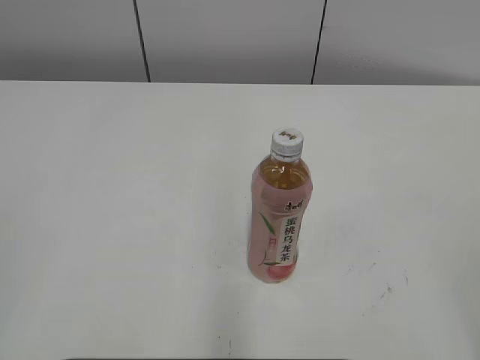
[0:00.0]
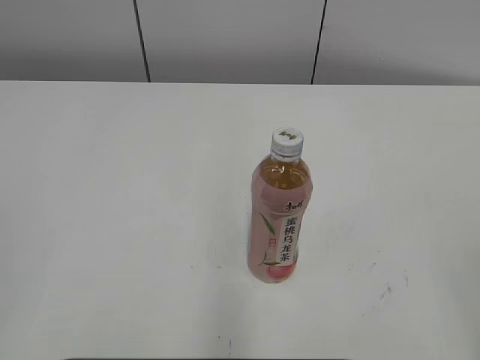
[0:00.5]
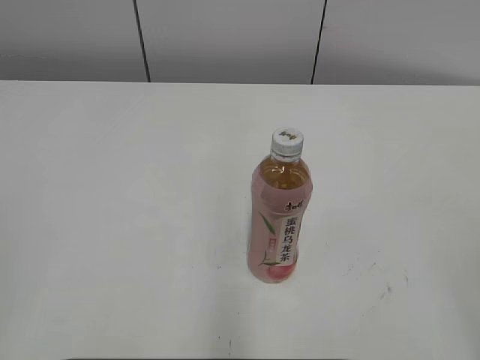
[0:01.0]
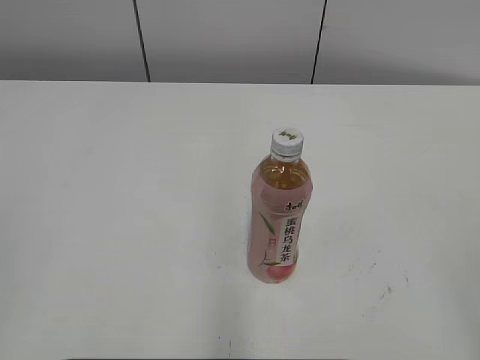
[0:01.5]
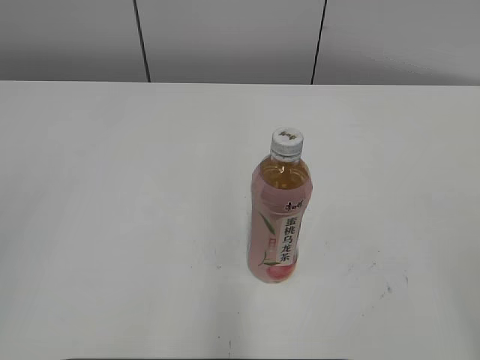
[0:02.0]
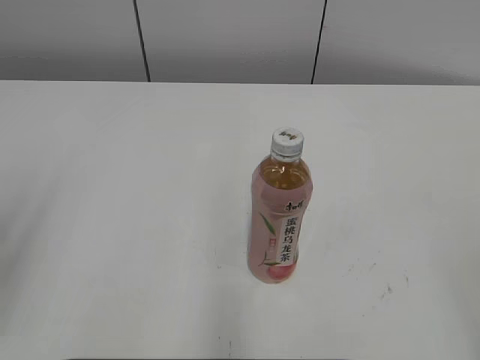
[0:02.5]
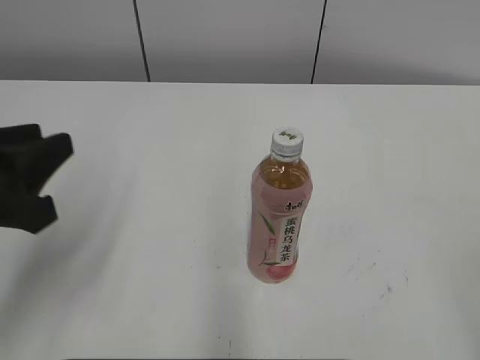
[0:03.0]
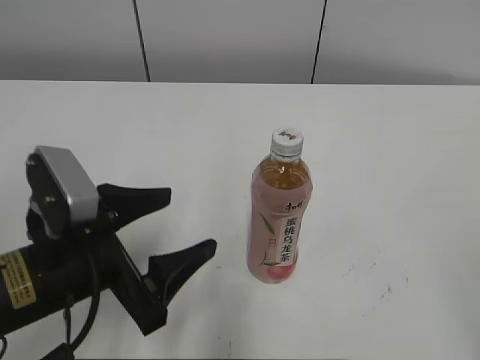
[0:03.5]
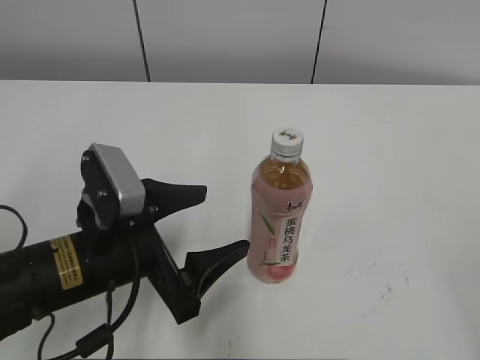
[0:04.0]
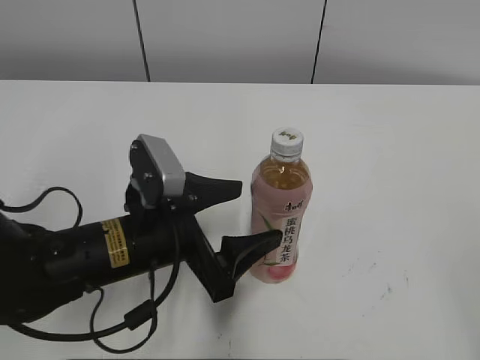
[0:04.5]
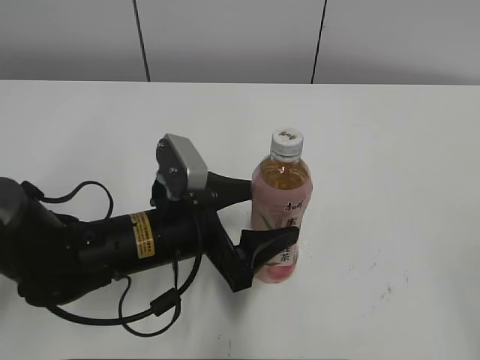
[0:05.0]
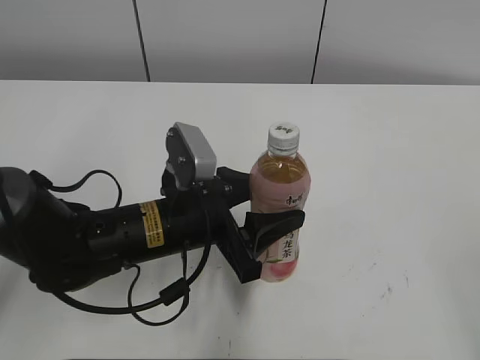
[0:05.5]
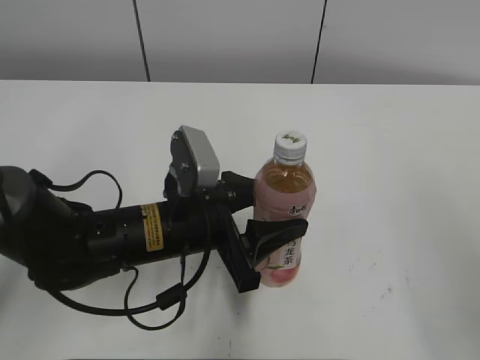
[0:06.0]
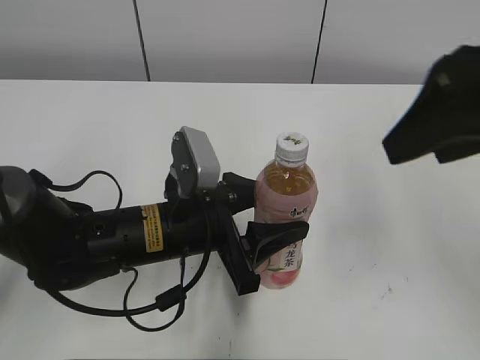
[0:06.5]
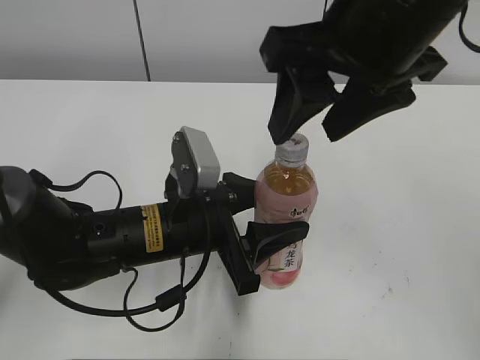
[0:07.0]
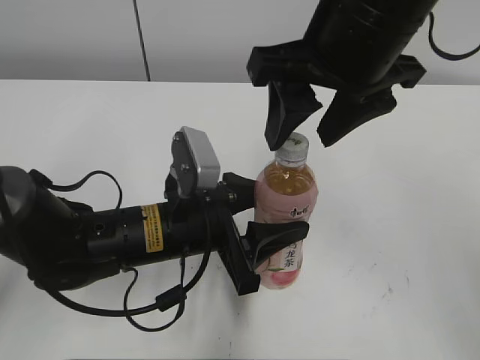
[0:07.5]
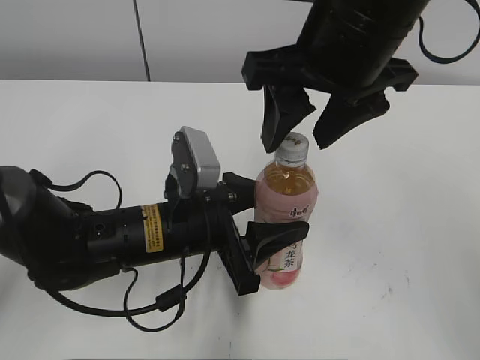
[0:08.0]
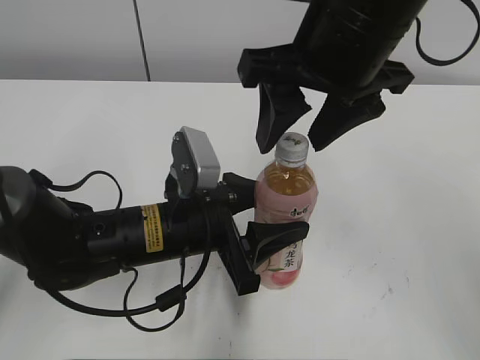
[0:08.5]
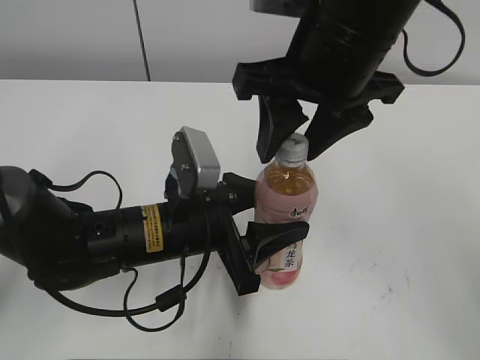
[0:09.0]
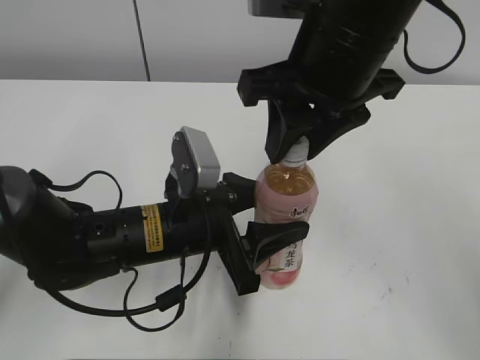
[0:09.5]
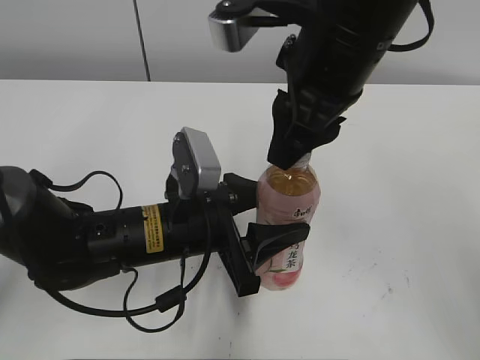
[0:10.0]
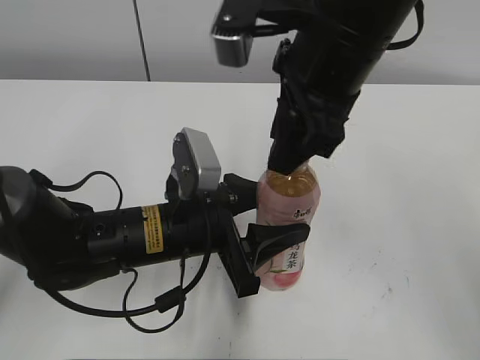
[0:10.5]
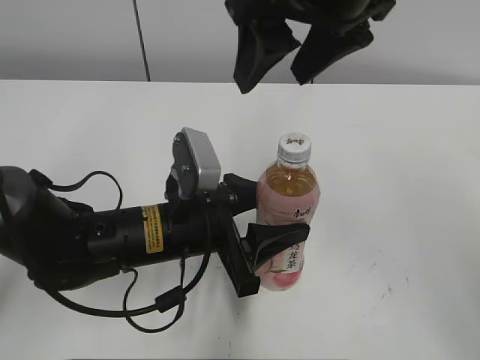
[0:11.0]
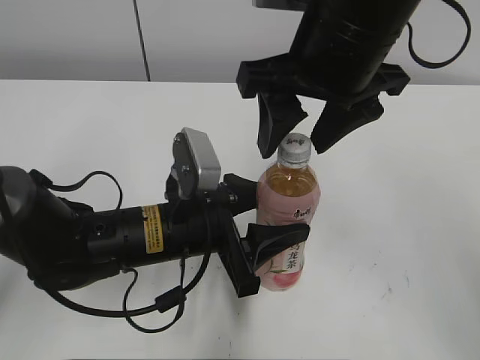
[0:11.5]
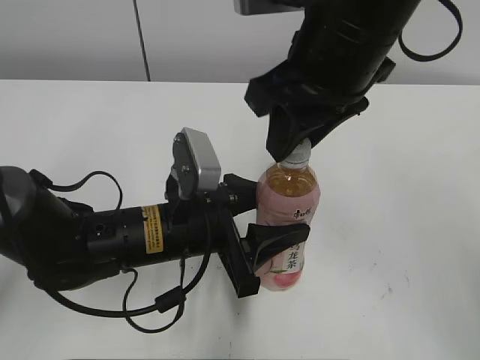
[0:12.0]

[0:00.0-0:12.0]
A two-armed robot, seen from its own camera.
Step, 0:00.0 to 0:05.5: Grab the Peach Oolong Tea with the left hand.
0:02.0 to 0:04.0: The left gripper shifts approximately 35 cm downward, forward and to the right, and opens up.
0:04.0 to 0:06.0: The right gripper shifts about 10 cm forward; the left gripper shifts roughly 10 cm to the right and forward, and closes.
0:06.0 to 0:08.0: The right gripper shifts approximately 30 cm forward and to the left.
0:08.0 to 0:10.0: The right gripper closes up.
0:10.0 to 0:12.0: The right gripper opens, then closes once more.

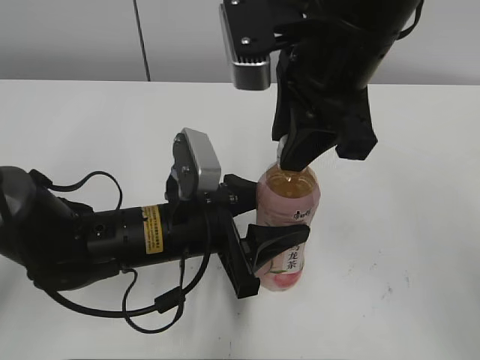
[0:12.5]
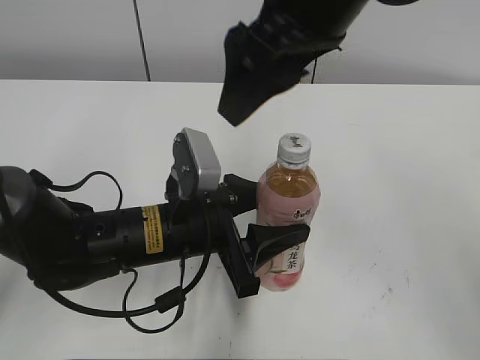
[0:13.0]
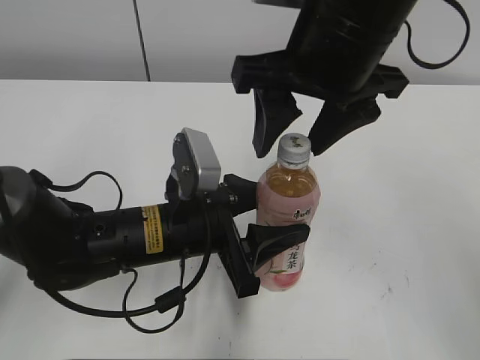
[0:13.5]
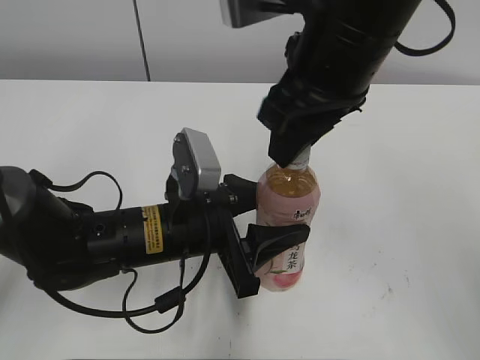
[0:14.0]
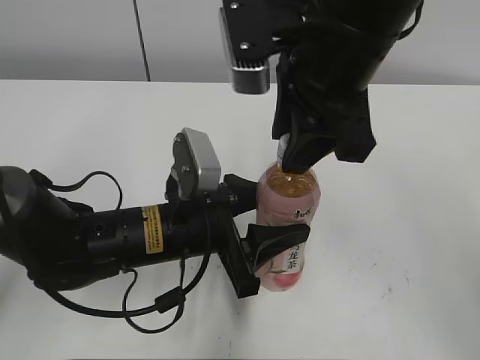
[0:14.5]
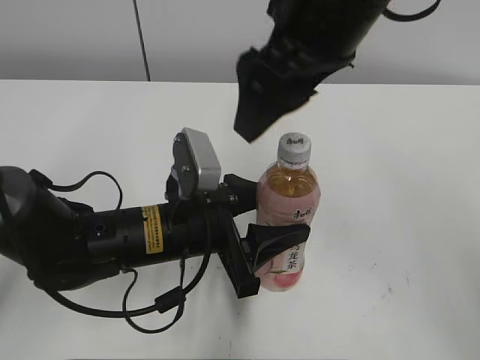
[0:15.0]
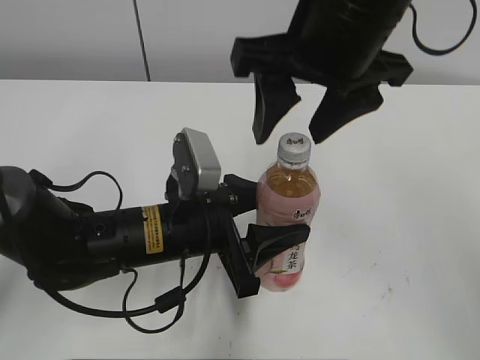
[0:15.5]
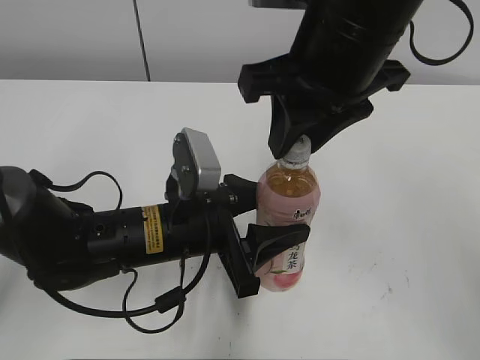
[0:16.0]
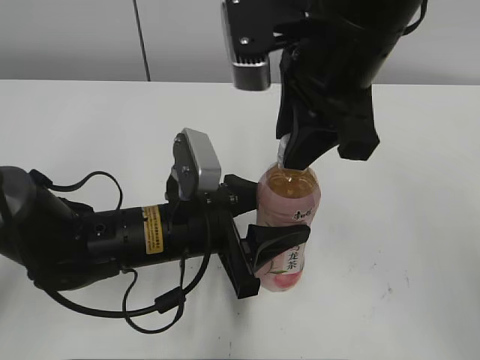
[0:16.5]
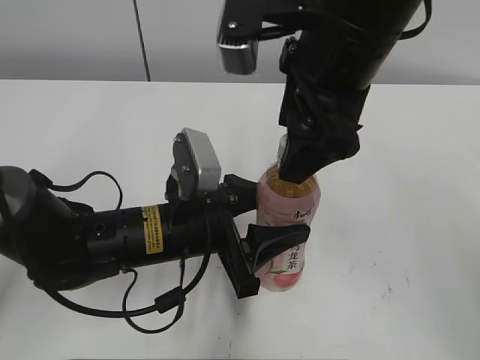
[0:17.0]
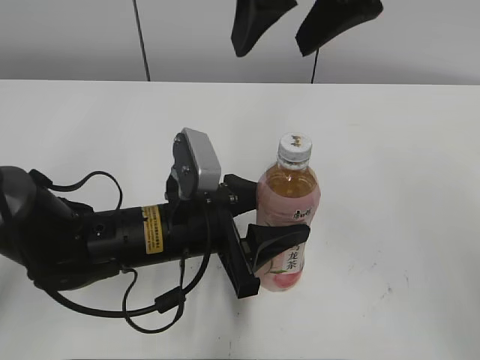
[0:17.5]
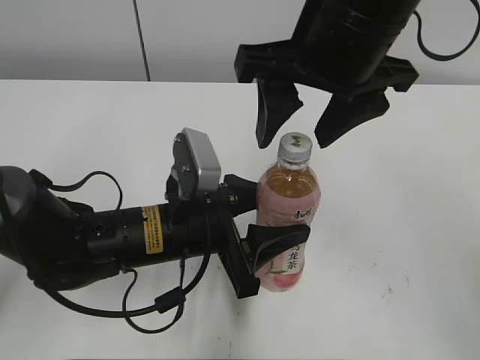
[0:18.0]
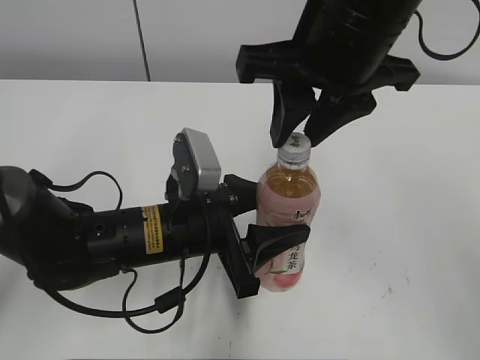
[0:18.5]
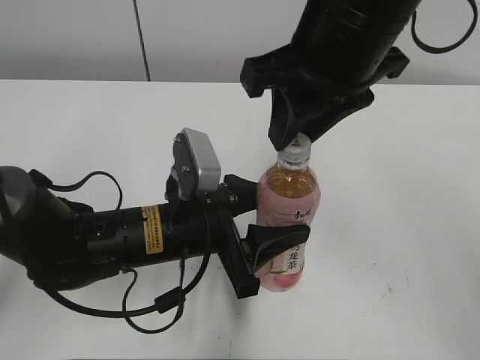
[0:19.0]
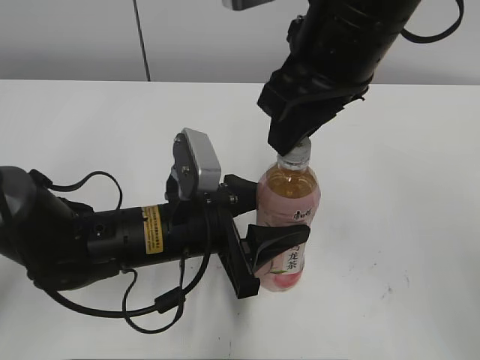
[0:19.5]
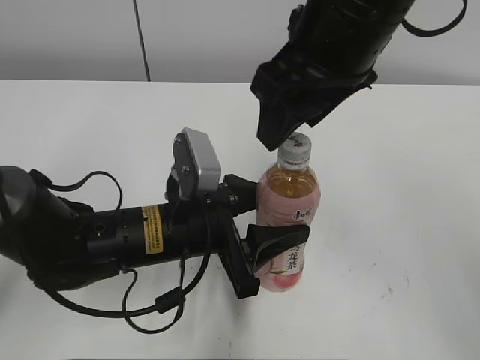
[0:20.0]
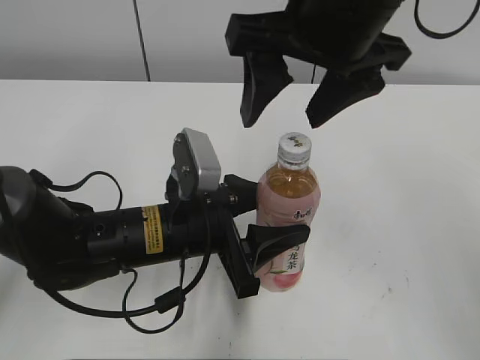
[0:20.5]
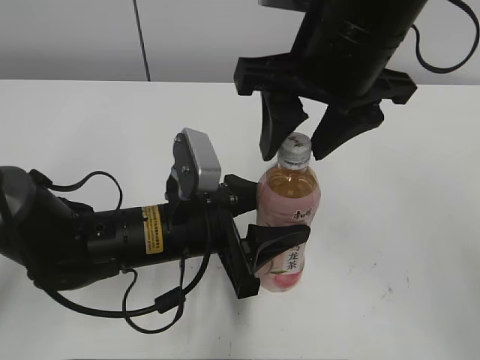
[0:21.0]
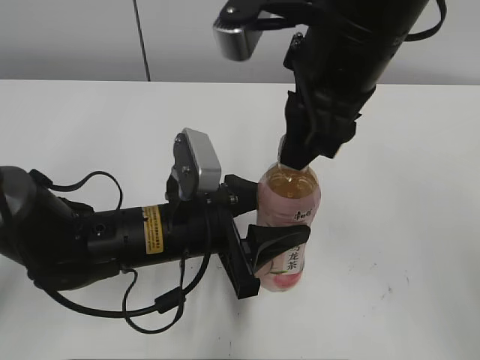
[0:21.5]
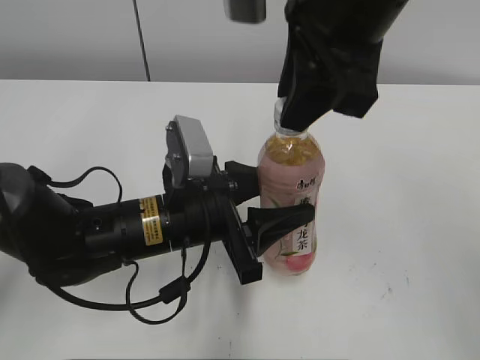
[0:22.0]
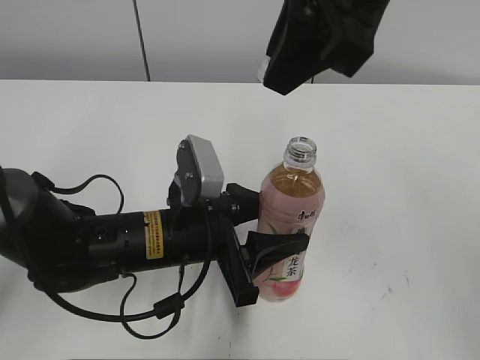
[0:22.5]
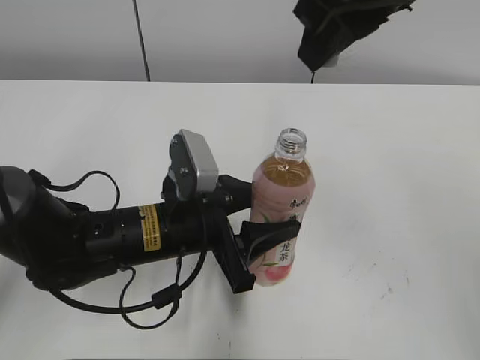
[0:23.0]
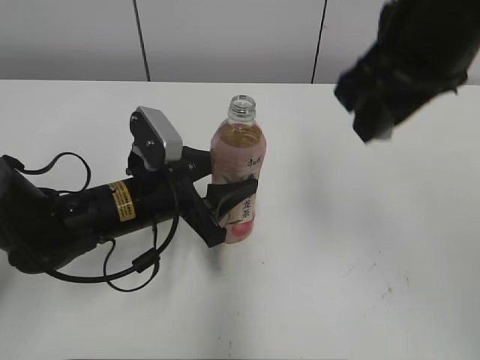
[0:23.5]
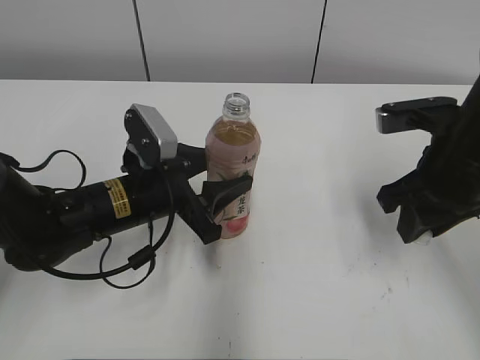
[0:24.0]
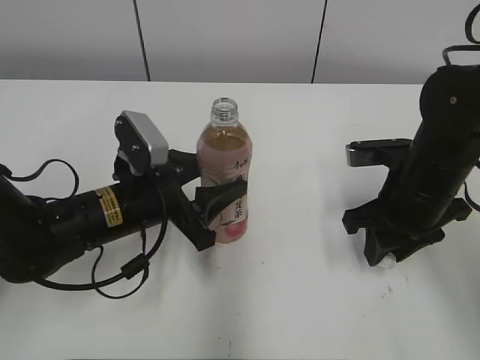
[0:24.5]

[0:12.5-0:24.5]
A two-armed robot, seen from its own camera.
0:12.5 to 0:14.5: The right gripper opens, then closes again.
0:14.5 to 0:16.5: The right gripper opens and closes again.
0:16.5 to 0:18.5: The right gripper opens, then closes once more.
0:18.5 to 0:20.5: The right gripper opens its fingers.
0:20.5 to 0:22.5: The right gripper closes up.
0:22.5 to 0:24.5: The right gripper is displaced downward and to the right by roughly 25 cm. The left gripper travels to the left by about 5 cm.

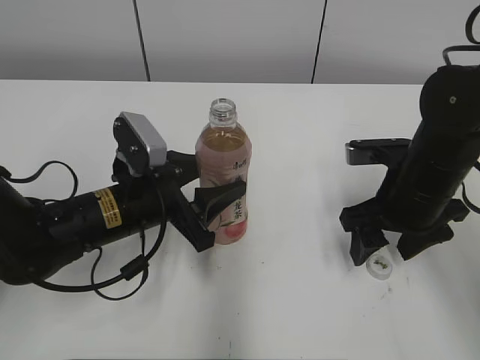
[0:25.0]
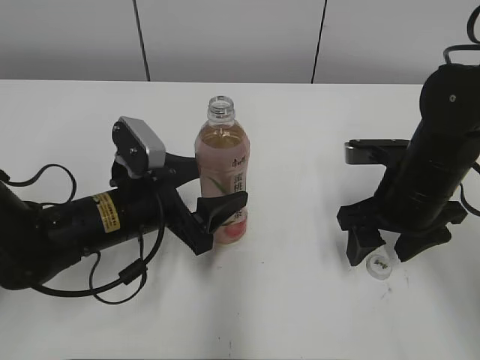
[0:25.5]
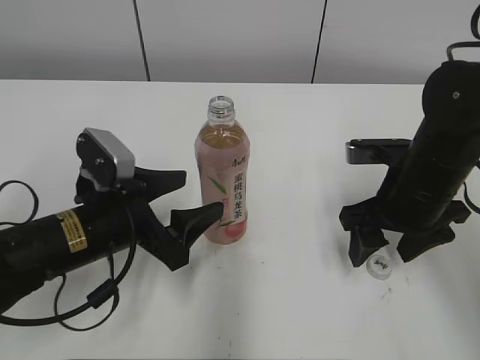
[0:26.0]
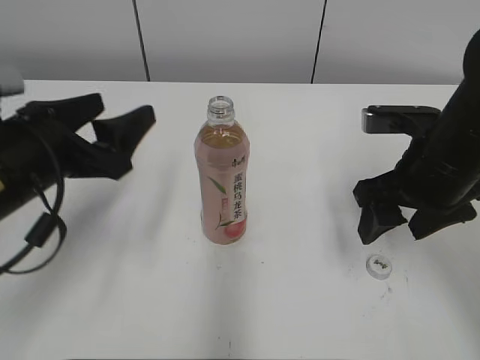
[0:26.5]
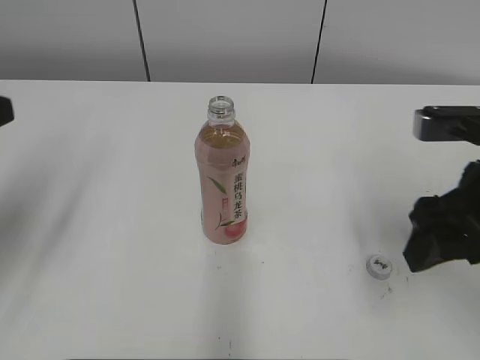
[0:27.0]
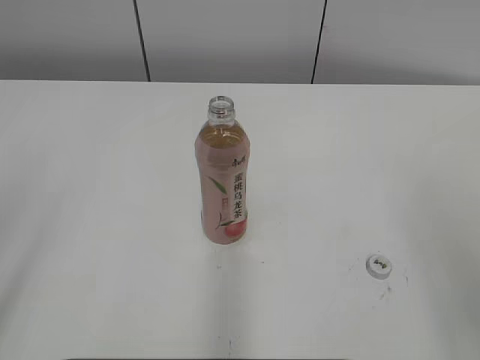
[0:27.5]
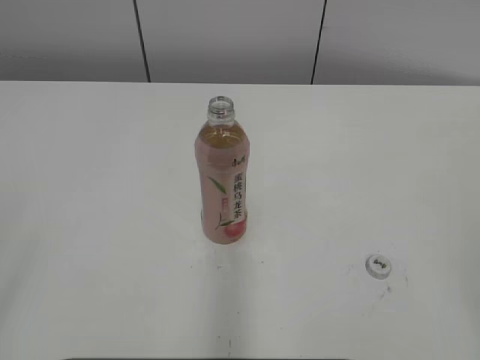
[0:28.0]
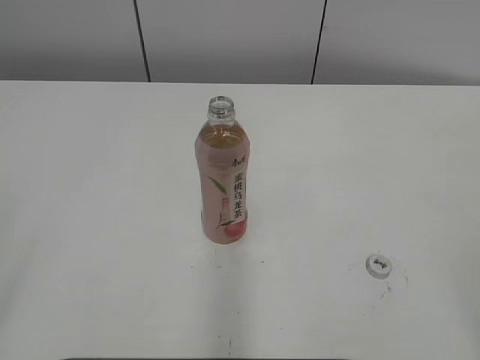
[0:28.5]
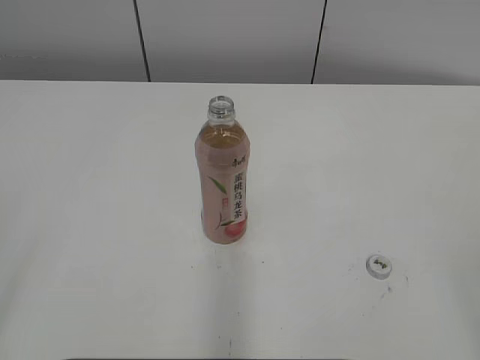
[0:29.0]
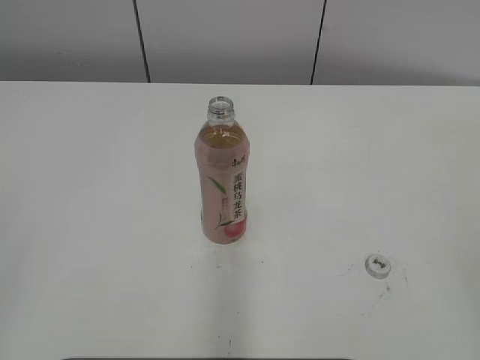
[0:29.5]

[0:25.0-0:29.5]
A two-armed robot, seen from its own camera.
0:25.0 to 0:27.0: The left gripper moves upward, to the left and backward, roughly 25 cm, and opens up; the right gripper heads upward and backward, covering some 10 cm.
0:27.0 to 0:29.5: The right gripper moves backward and to the right, some 25 cm. Meanwhile the left gripper heads backward, covering roughly 20 cm.
